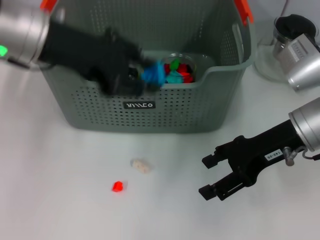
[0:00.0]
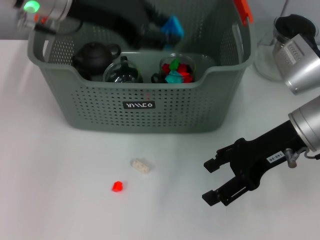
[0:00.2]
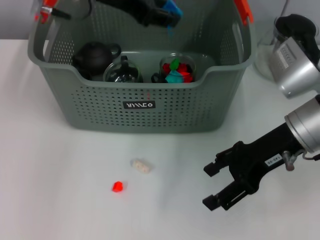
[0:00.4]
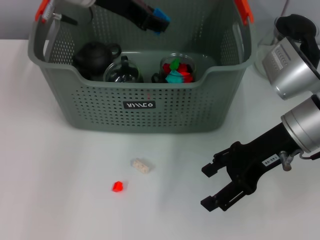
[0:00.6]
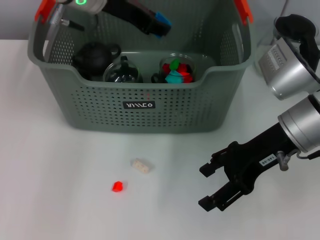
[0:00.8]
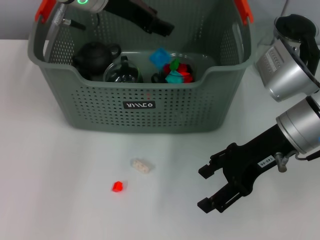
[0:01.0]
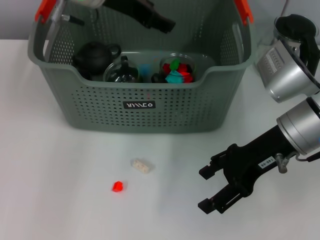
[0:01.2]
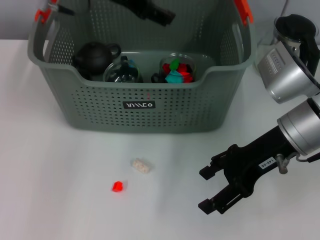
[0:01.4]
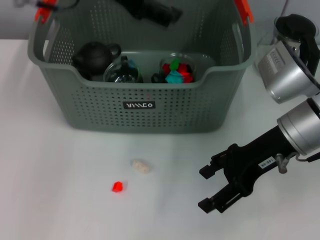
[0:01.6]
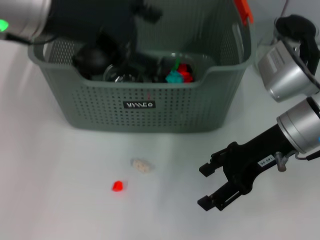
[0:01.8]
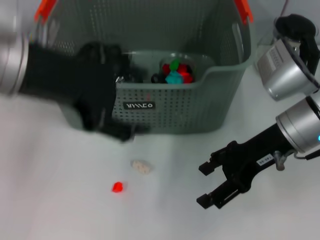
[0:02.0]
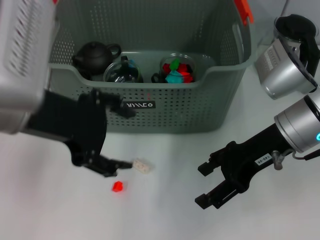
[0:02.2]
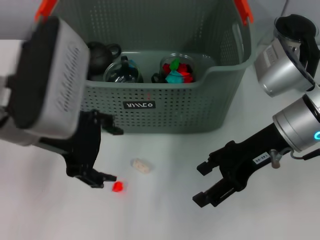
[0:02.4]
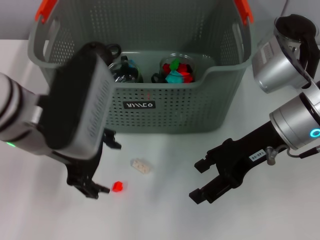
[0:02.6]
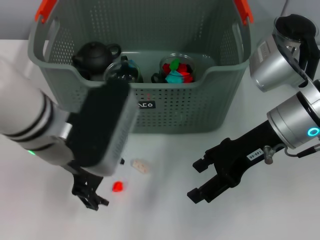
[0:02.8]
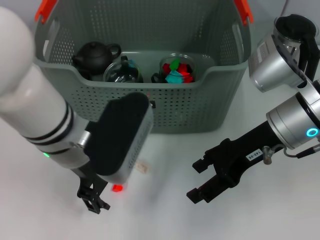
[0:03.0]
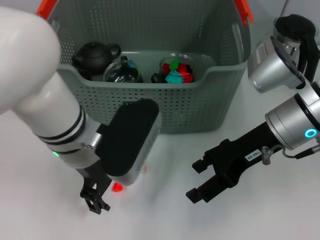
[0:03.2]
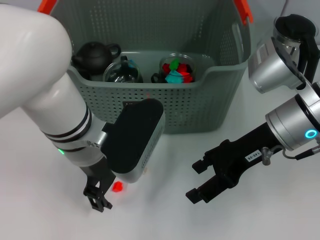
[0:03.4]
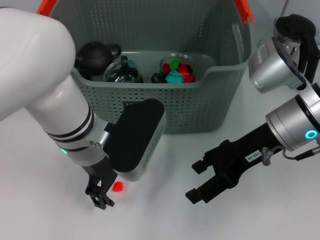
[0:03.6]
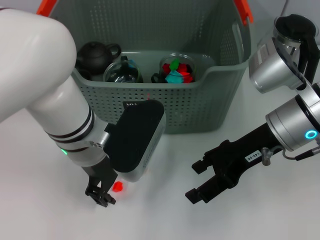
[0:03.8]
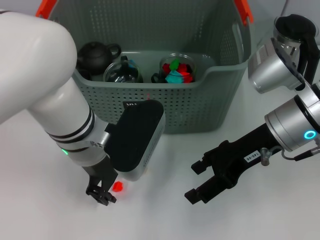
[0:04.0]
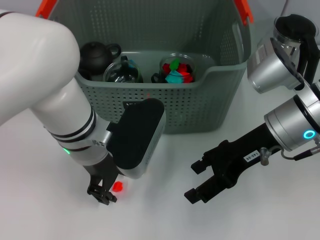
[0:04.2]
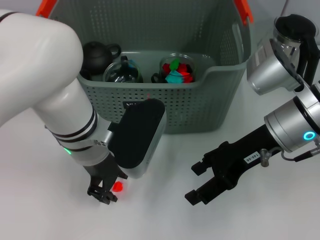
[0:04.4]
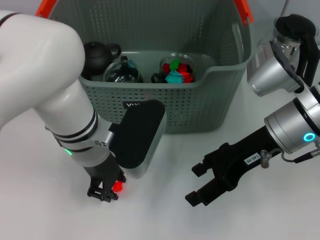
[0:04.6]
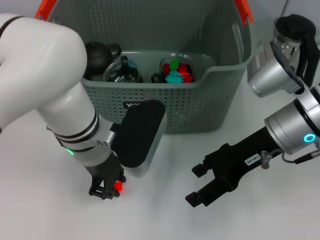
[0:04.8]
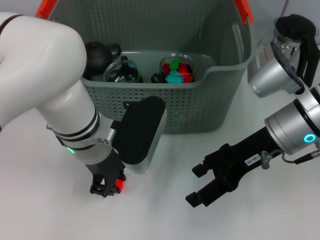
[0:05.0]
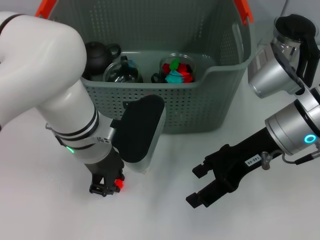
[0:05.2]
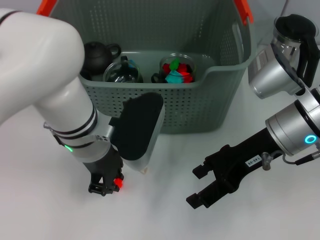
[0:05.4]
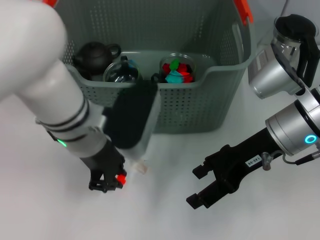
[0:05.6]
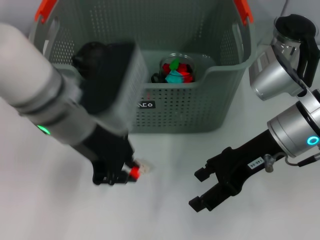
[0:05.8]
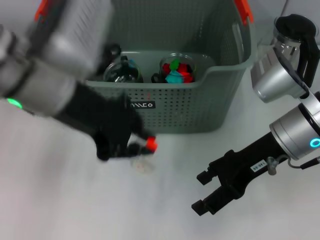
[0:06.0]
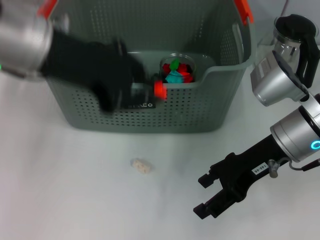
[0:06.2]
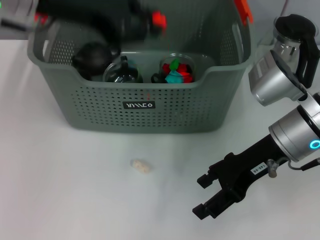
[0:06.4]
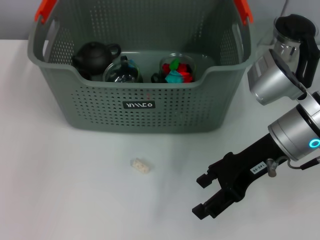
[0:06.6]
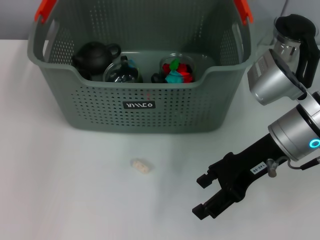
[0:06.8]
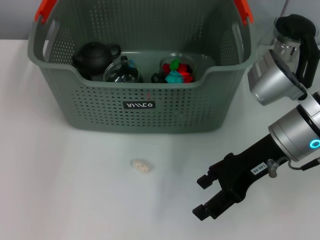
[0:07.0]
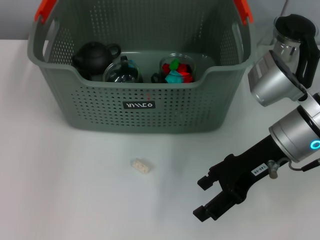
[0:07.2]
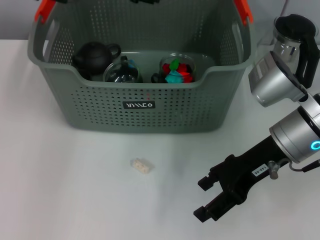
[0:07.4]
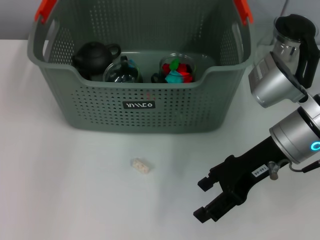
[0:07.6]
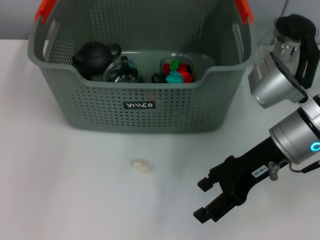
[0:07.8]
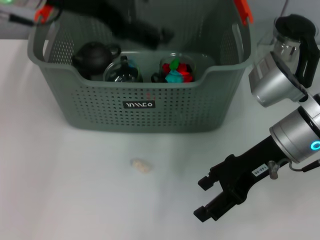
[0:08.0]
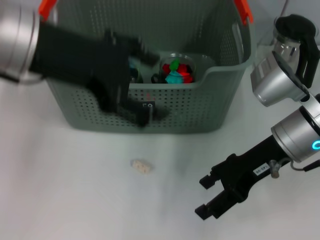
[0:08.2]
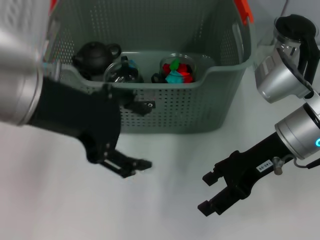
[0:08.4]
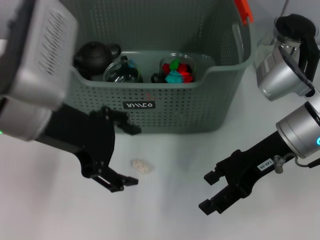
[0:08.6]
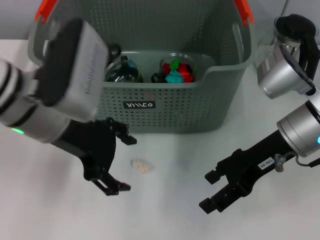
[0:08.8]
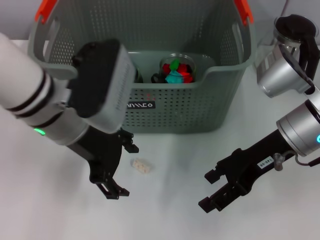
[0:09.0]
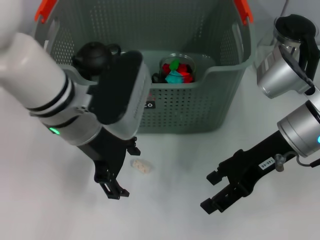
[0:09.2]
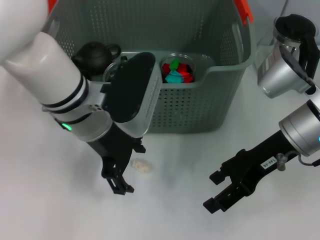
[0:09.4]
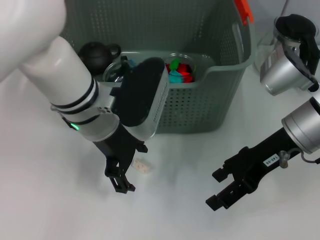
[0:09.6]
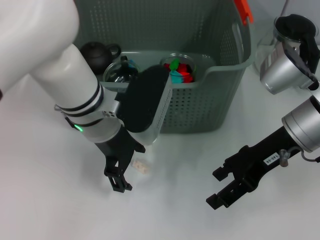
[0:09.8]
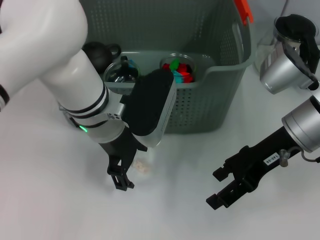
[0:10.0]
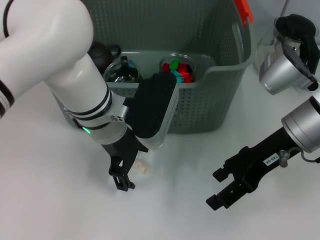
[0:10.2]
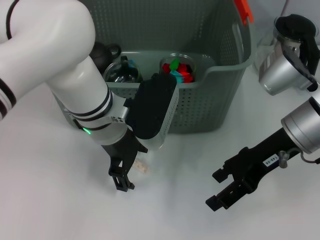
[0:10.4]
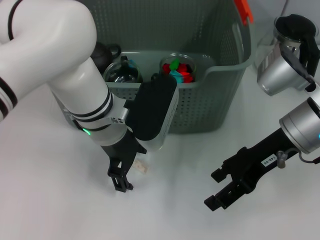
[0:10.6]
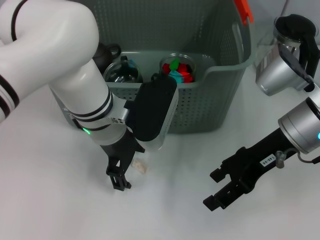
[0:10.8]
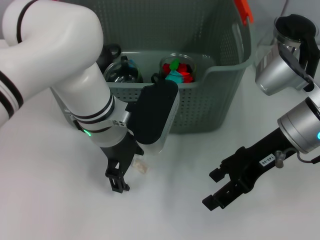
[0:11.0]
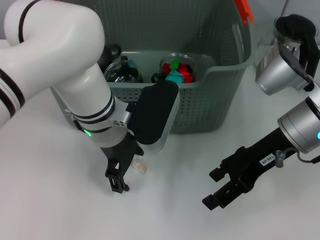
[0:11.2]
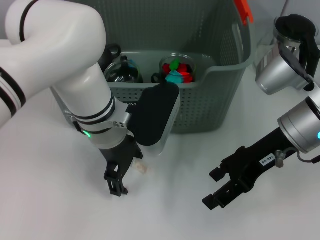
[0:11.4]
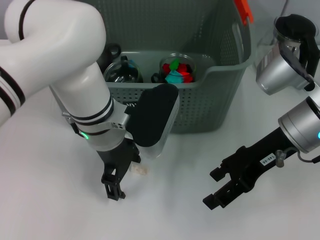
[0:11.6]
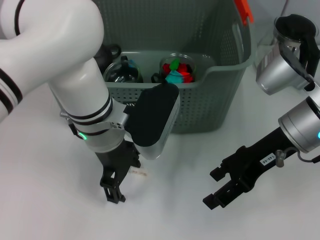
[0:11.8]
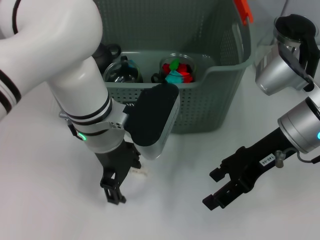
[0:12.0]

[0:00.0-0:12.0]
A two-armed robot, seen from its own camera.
Task of the whole recording: pick up the teacup on the table and place it into the storage bin, pick up the block on the table and place it into the storage bin.
Step, 0:01.4 to 0:05.0: Grasp the orange block with left gripper.
Step, 0:05.2 to 0:07.2: Place the orange block in the storage box with left gripper.
0:00.0 to 0:01.6: The left gripper opens up.
0:01.6 to 0:03.0: The left gripper goes roughly 15 cm downward and backward.
0:04.4 to 0:06.0: The left gripper heads upward, covering approximately 10 cm, and closes.
0:06.0 to 0:07.6: The left gripper travels forward and upward by some 15 cm.
0:07.6 to 0:09.0: The left gripper shifts about 15 cm backward and downward, and opens.
0:09.0 to 0:10.4: The left gripper shifts about 5 cm to the right and downward.
0:10.4 to 0:12.0: The grippers move only a little.

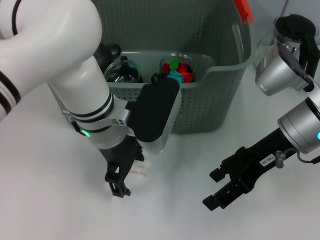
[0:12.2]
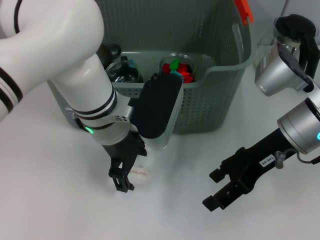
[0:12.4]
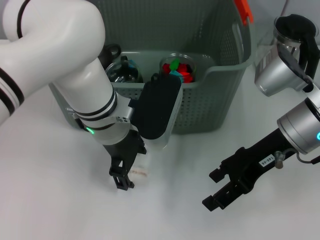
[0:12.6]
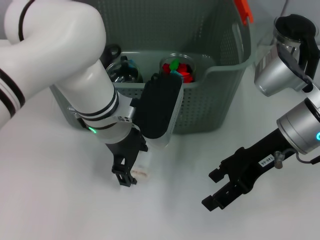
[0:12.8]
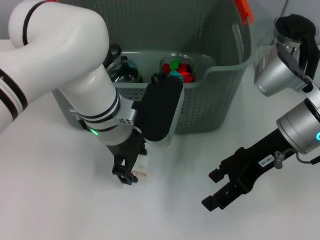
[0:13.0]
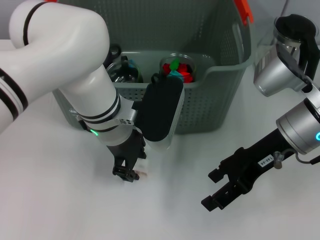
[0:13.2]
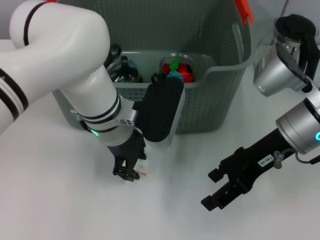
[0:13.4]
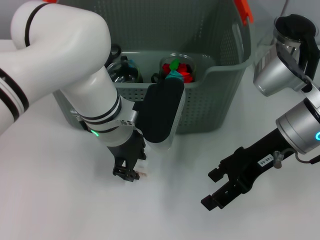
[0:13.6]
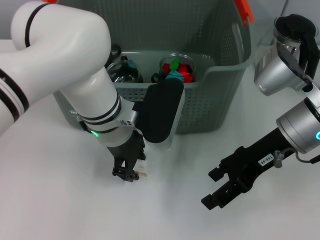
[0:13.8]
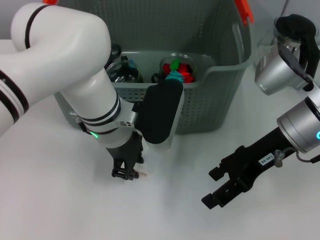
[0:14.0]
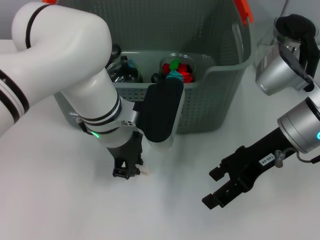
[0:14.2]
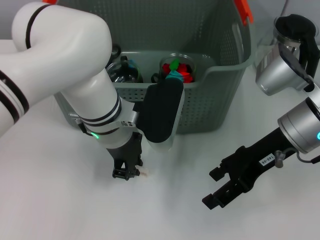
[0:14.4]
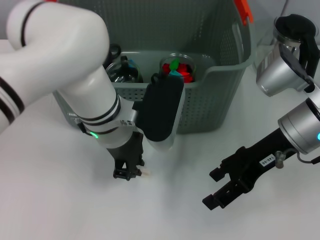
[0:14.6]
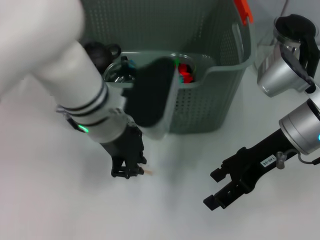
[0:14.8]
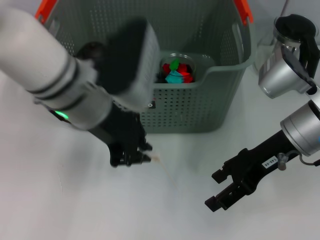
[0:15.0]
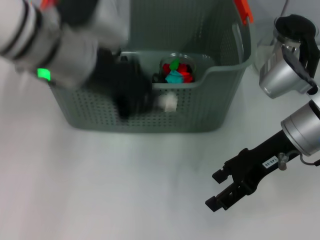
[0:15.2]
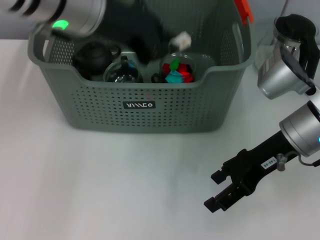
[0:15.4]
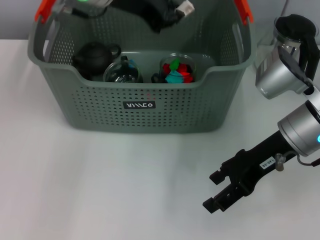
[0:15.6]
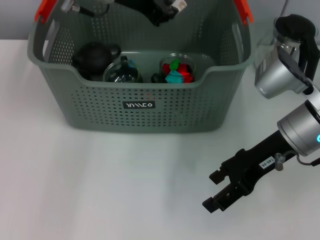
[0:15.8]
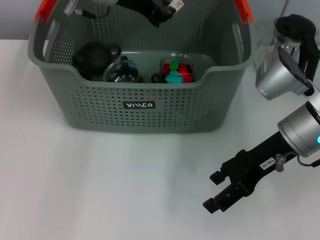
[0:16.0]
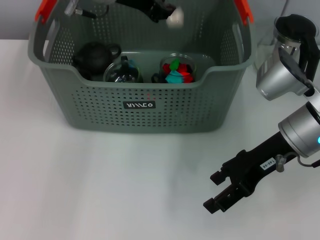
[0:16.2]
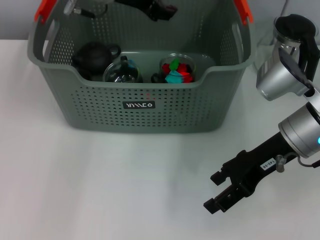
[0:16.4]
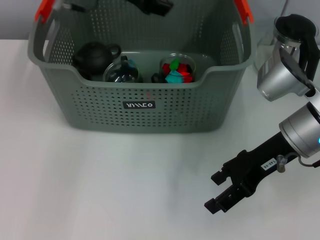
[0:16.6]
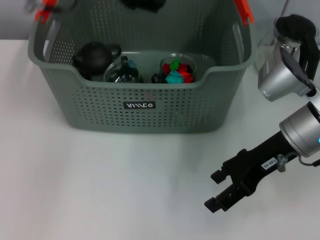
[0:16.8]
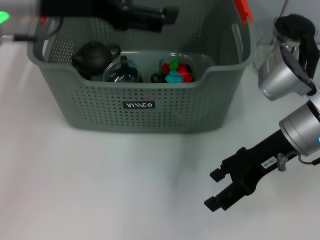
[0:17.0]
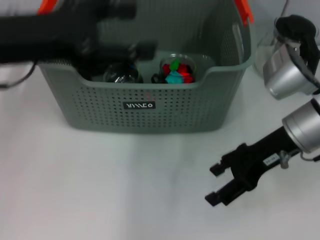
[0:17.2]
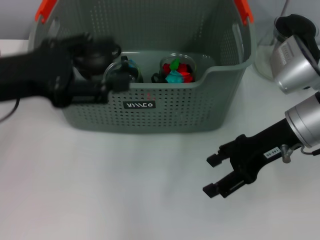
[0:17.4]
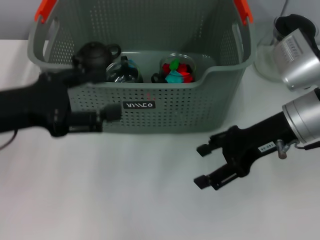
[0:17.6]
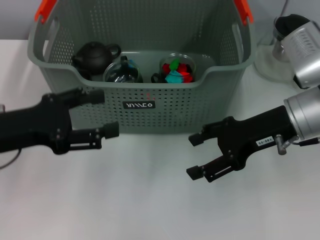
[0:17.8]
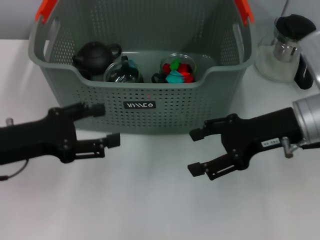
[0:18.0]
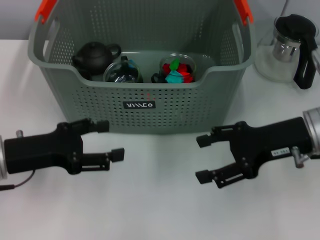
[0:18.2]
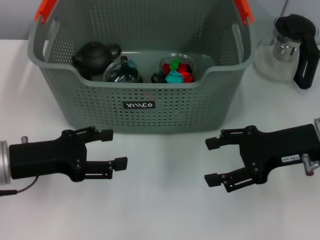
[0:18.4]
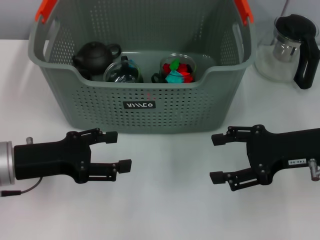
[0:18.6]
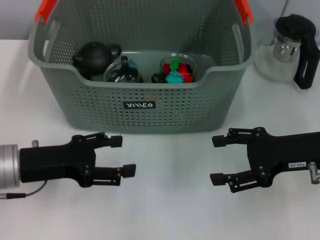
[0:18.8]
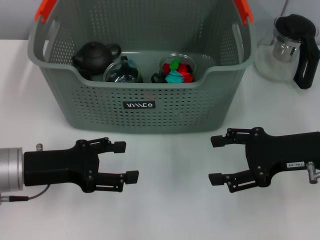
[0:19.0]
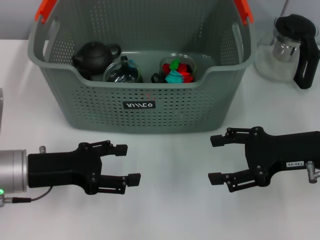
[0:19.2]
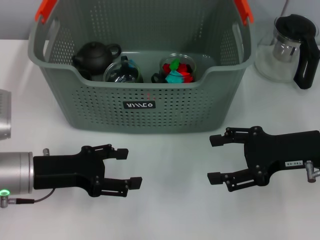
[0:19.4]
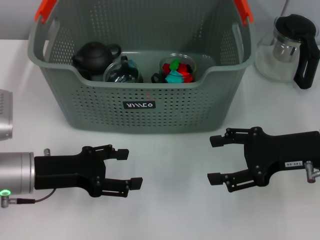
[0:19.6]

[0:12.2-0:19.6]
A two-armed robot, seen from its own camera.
Task of the whole recording: pick up the teacup on the table and place it into the storage bin, pick up the block on the table and place it into the storage bin.
Step, 0:12.2 to 0:14.4: Grasp the white block with left gripper.
Step, 0:14.6 to 0:16.2: Place the white block in the storage box with left gripper.
0:12.2 to 0:13.6: The left gripper closes its fingers.
0:13.6 to 0:15.2: The left gripper heads upward and to the left, covering about 15 cm.
0:15.2 to 0:16.6: The left gripper is displaced forward by roughly 10 cm.
0:16.6 to 0:18.2: The left gripper shifts approximately 25 cm backward, downward and to the left, and opens its fingers.
0:18.2 to 0:19.6: There are only small adjustments of the grippers.
